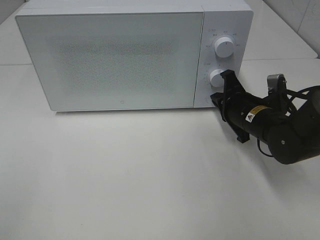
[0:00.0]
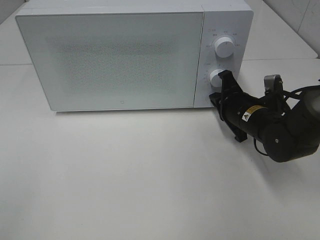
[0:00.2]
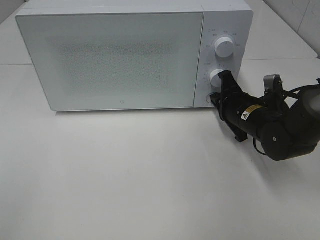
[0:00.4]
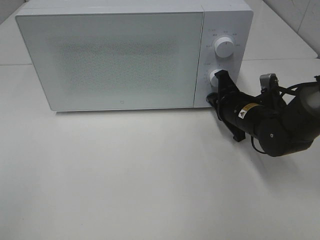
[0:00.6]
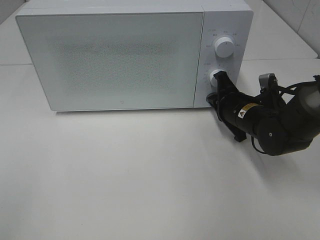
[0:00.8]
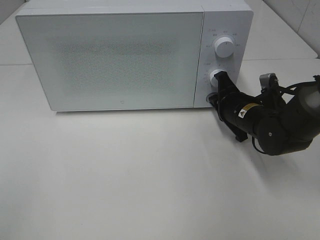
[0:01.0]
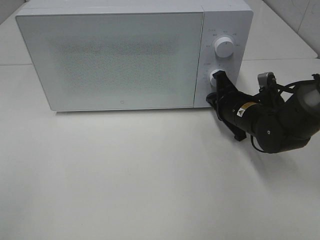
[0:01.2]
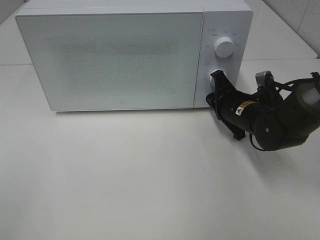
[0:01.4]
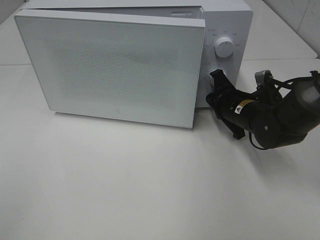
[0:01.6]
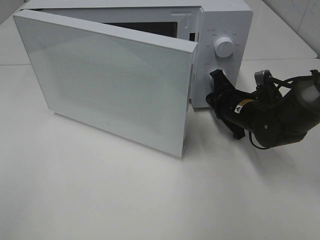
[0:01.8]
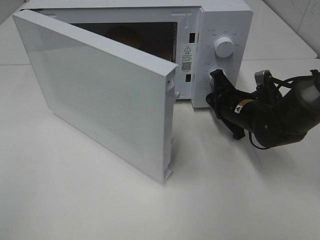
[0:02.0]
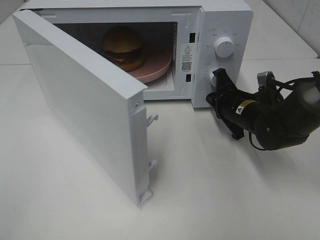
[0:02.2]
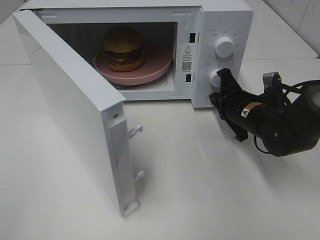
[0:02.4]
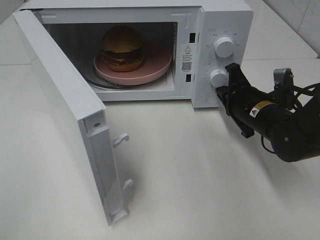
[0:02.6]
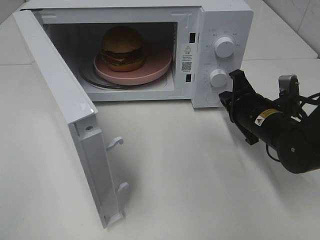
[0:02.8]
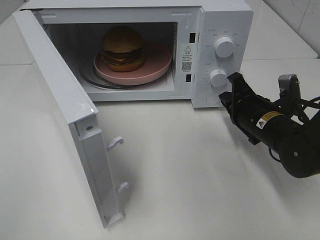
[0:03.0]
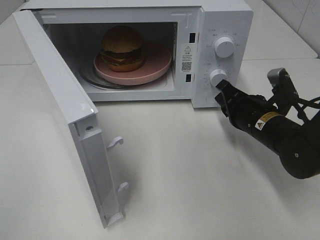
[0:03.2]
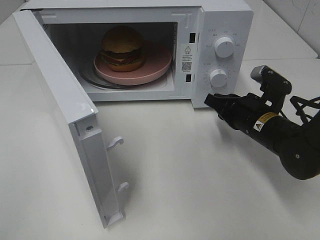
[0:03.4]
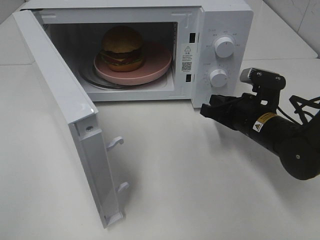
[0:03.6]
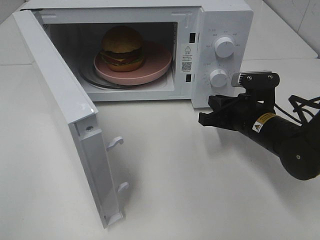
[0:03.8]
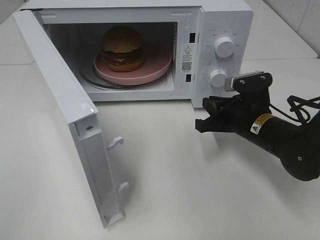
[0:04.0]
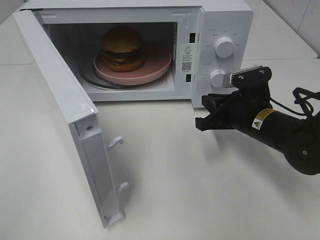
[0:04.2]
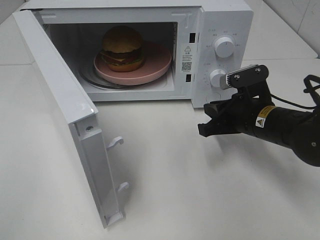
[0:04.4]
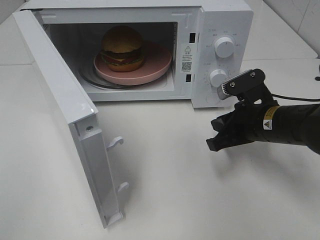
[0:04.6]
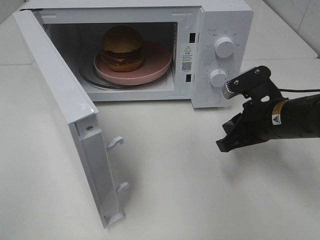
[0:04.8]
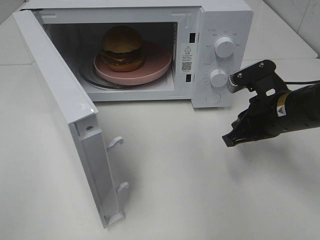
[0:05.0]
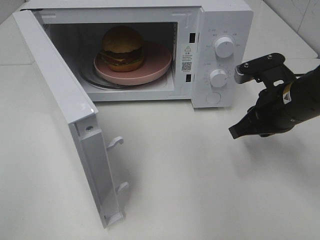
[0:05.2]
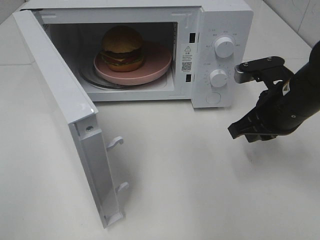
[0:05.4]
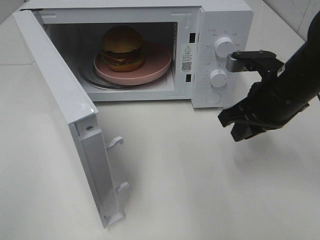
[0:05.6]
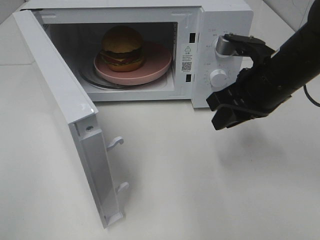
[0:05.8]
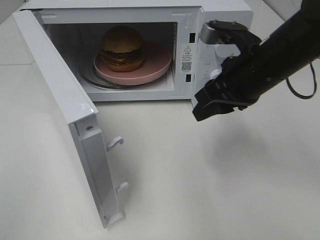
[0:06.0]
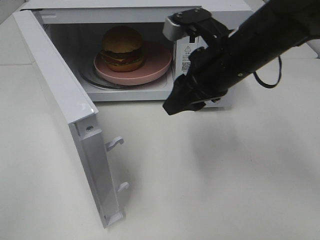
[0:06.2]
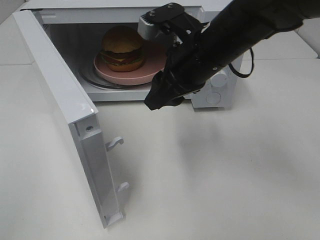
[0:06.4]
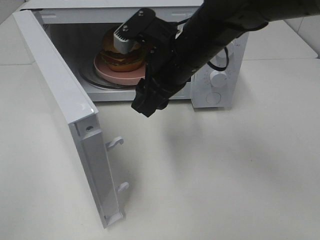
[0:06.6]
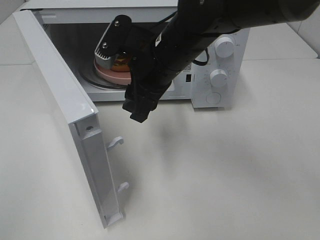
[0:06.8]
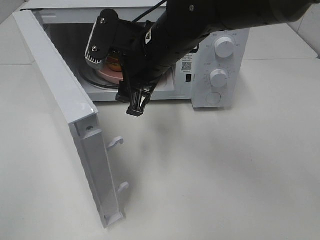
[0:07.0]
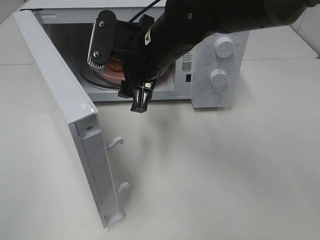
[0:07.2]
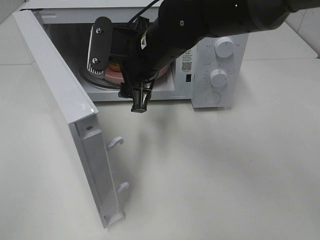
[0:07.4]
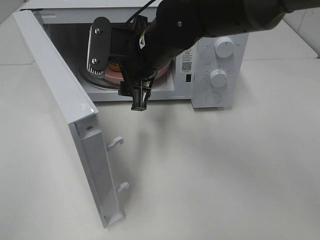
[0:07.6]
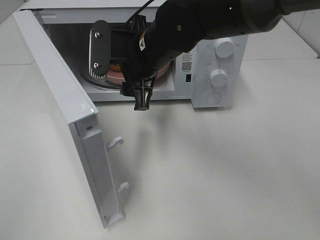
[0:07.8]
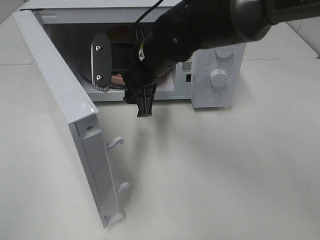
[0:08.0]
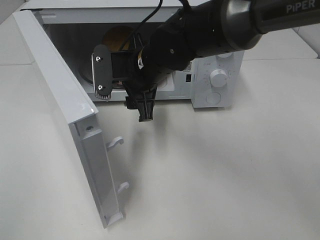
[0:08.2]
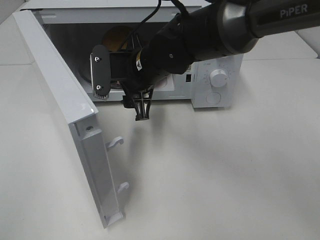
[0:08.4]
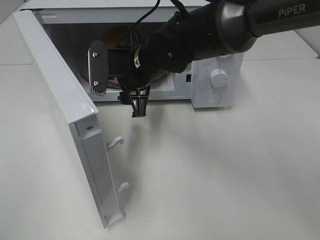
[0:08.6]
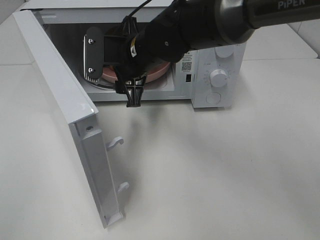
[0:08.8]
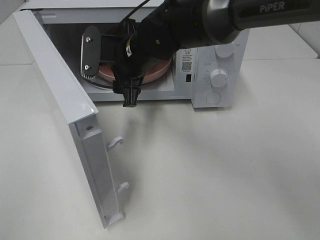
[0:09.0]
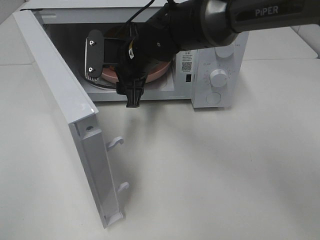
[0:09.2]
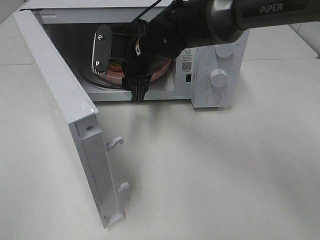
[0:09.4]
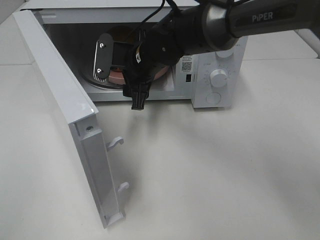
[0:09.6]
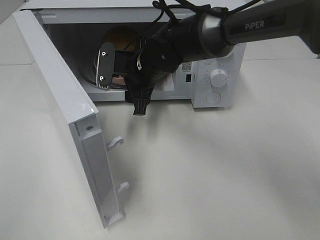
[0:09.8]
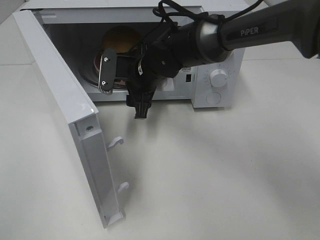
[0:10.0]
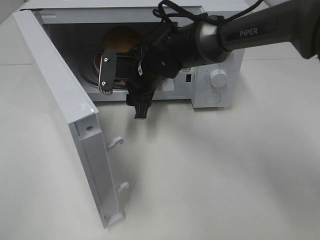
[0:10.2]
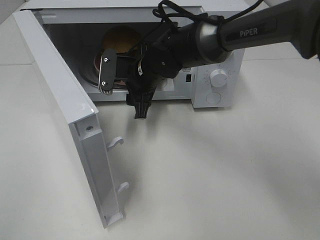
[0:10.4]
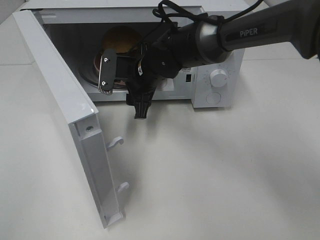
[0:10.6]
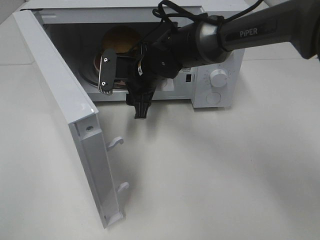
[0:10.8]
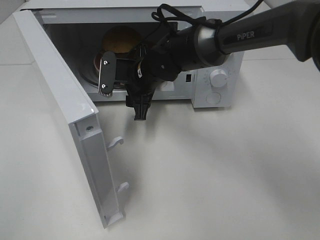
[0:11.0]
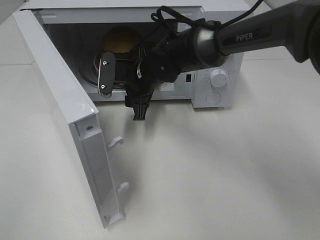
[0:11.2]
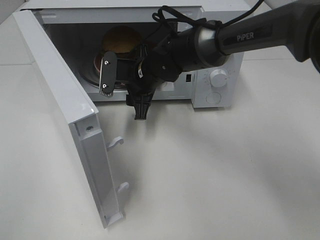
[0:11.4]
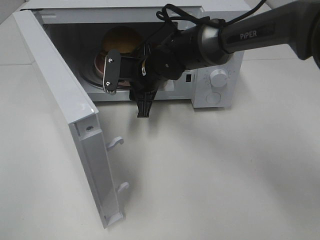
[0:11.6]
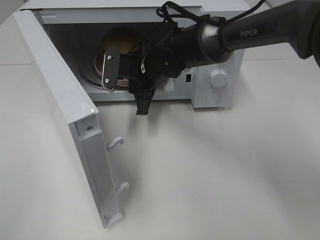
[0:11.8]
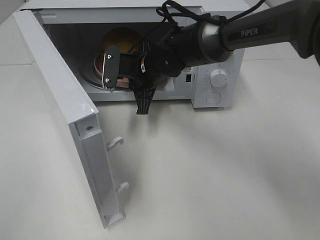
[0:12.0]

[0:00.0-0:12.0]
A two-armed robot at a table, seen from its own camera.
Task of the whole recording: Heat the burger.
Step, 0:00.0 to 0:02.4: Right hand: press the switch.
Step, 0:02.6 to 0:11.8: Right hand: grab the plate with the hamburger.
0:00.0 to 0:01.6: The grippers make only small movements.
0:01.6 to 0:03.0: The right gripper goes roughly 5 cm backward.
0:04.4 to 0:06.0: The right gripper heads upward, covering some 10 cm.
0:06.0 to 0:07.6: The right gripper heads to the left, covering some 15 cm, and opens up.
0:07.6 to 0:09.0: The grippers make only small movements.
0:09.0 to 0:10.4: The right gripper heads downward, covering roughly 5 cm.
0:10.4 to 0:12.0: The right gripper closes up.

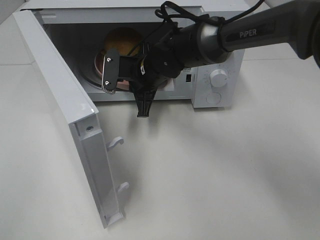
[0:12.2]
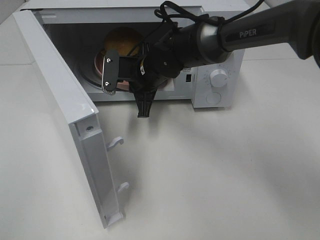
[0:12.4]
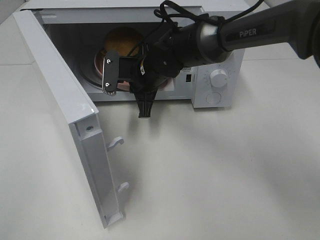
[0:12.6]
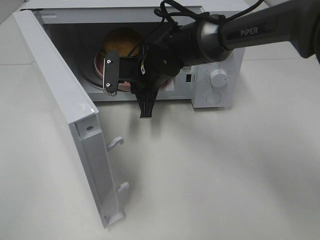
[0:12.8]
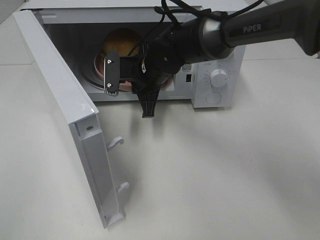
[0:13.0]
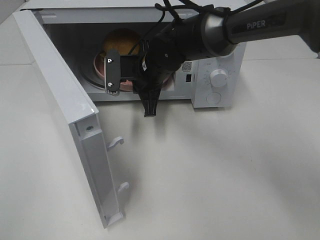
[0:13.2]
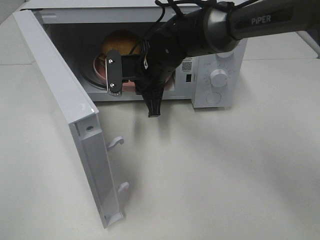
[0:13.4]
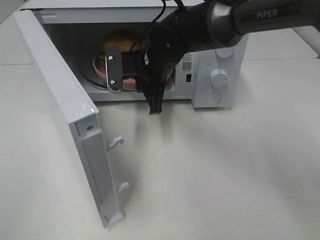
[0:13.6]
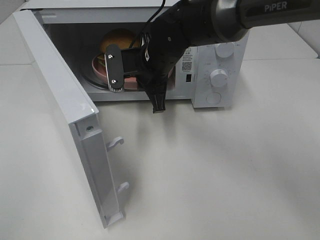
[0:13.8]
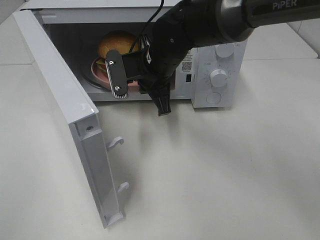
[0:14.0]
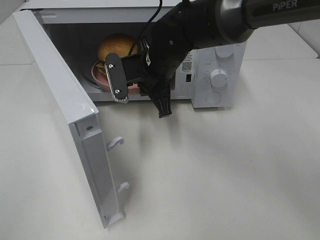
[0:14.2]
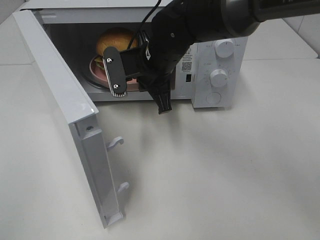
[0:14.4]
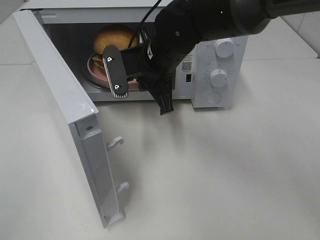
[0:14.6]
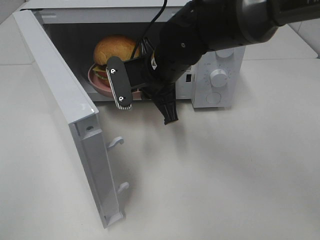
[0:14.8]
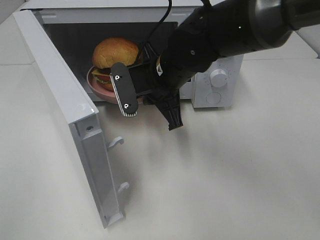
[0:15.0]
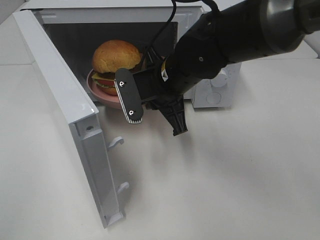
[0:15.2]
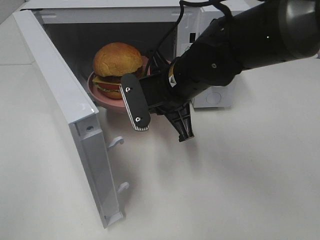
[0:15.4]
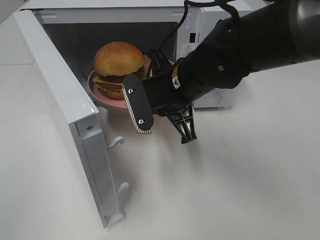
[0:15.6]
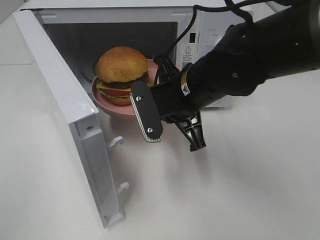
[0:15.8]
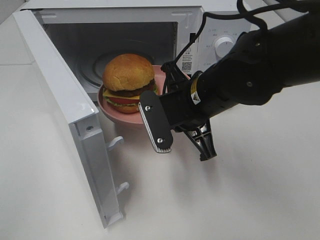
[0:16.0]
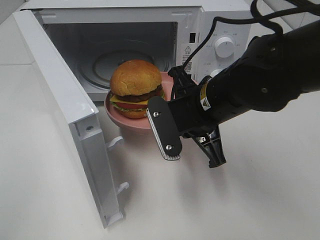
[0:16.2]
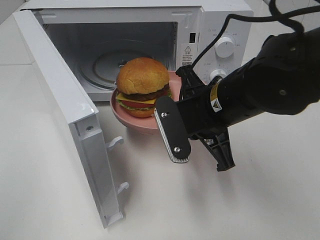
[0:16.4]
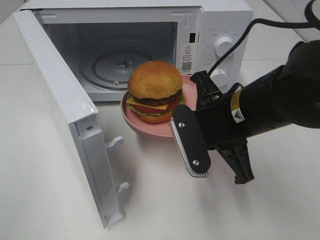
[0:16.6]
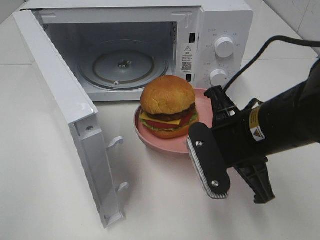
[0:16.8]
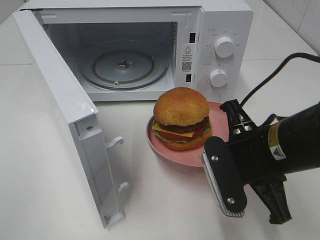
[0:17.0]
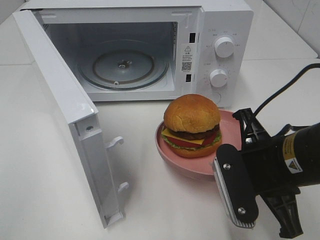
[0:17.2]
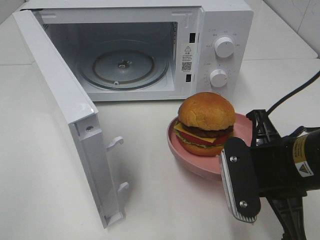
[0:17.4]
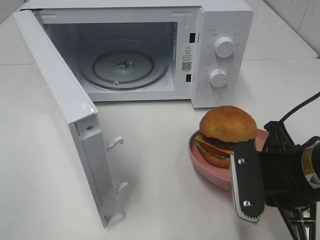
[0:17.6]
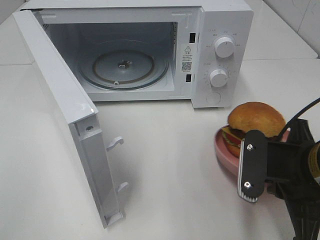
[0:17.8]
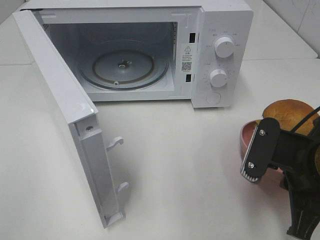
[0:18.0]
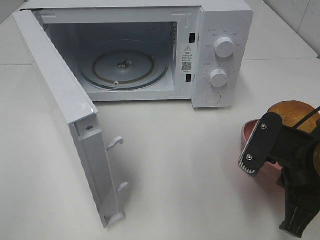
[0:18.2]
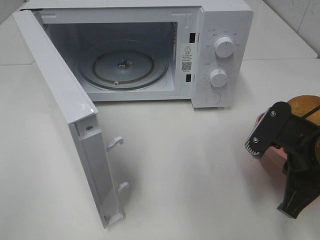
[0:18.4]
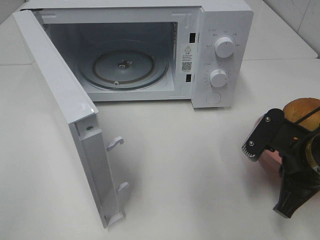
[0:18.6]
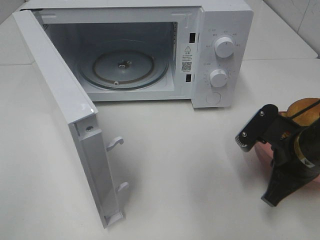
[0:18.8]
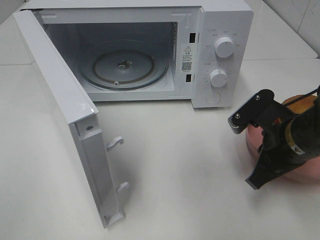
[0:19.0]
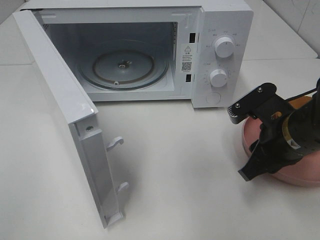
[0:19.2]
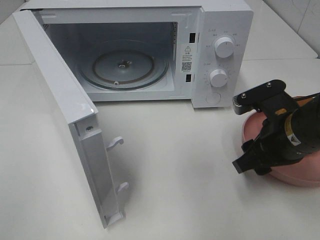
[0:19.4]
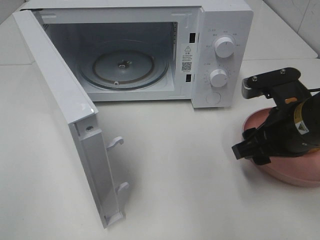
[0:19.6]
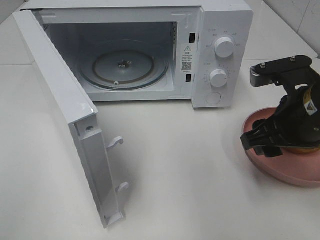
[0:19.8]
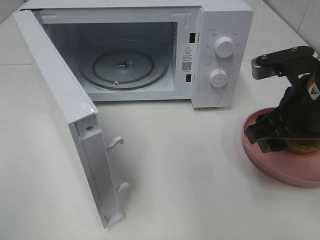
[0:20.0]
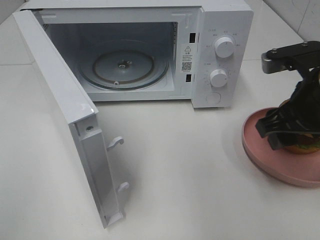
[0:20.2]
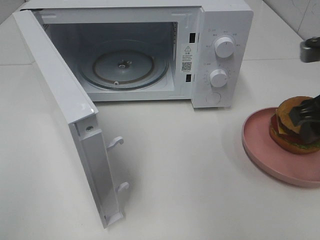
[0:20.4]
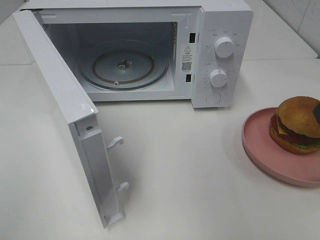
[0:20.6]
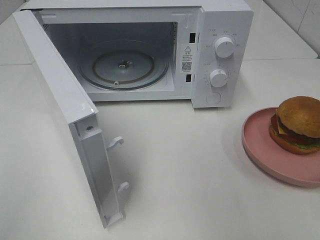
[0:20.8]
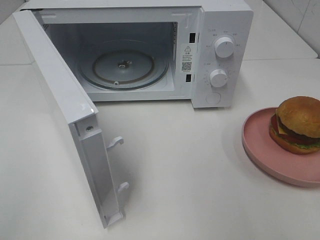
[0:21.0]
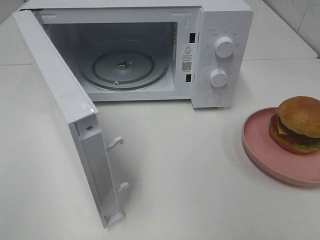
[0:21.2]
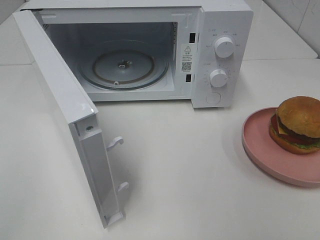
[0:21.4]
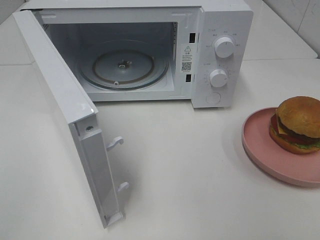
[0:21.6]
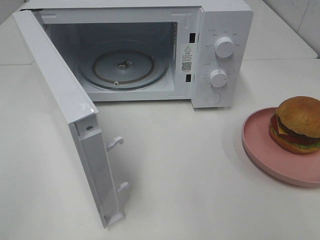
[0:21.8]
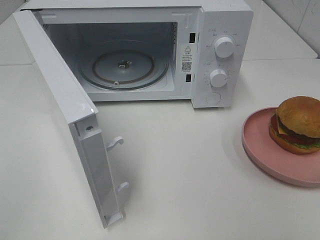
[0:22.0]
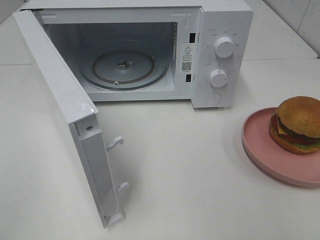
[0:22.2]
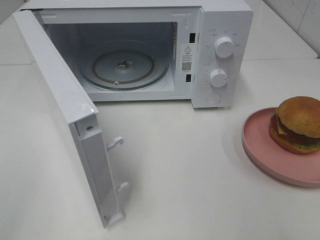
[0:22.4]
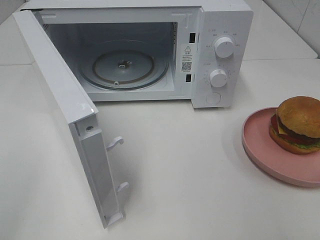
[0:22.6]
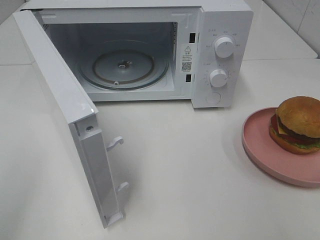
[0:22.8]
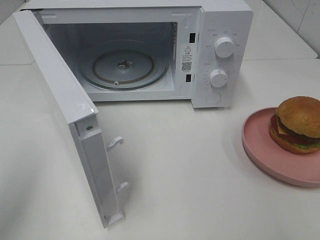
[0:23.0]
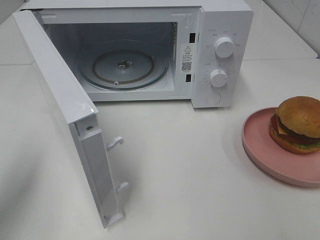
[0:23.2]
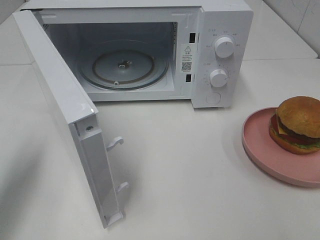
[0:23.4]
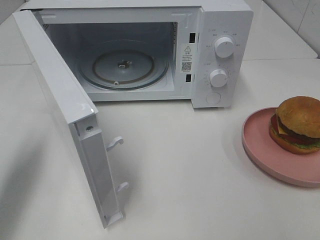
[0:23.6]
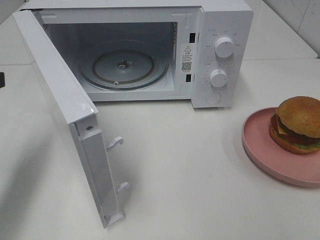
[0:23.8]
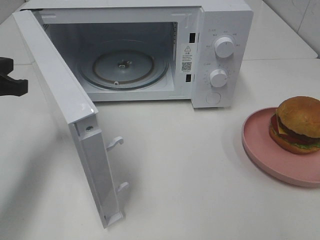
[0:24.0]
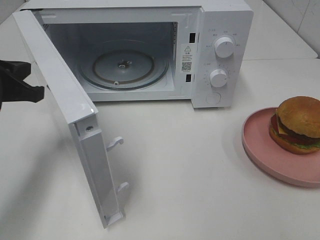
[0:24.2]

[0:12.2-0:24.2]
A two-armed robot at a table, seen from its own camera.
Task of the whole recording: Heat the burger.
Step, 0:12.2 to 0:19.0: Right hand: place the plate on the table.
0:12.2 to 0:13.8: The right gripper changes place by some 5 cm.
0:13.8 to 0:15.2: The right gripper goes roughly 5 cm backward.
0:15.2 to 0:16.6: The right gripper travels backward and to the right by some 10 cm.
0:16.6 to 0:18.2: The right gripper goes roughly 10 cm to the right and backward.
0:18.2 to 0:19.8: The right gripper is displaced forward by about 5 cm, and opens.
0:19.8 to 0:21.2: The right gripper goes about 15 cm backward, to the right and upward.
0:22.6 to 0:24.2: The left gripper shifts approximately 25 cm forward and downward.
